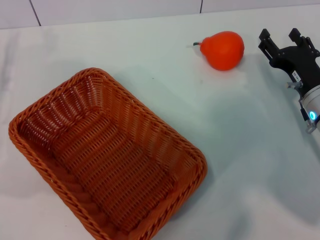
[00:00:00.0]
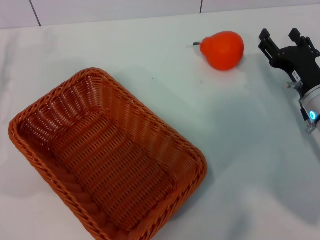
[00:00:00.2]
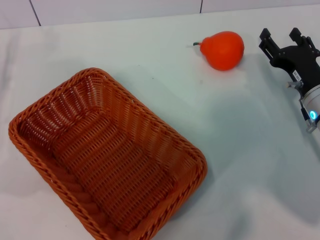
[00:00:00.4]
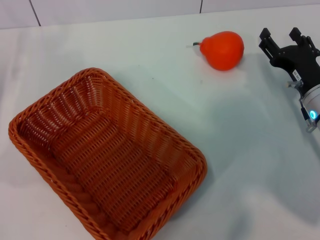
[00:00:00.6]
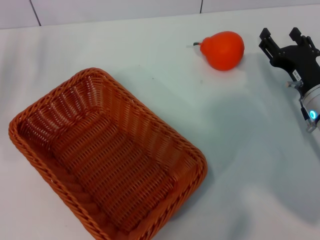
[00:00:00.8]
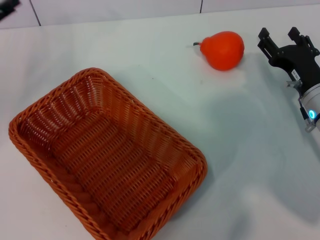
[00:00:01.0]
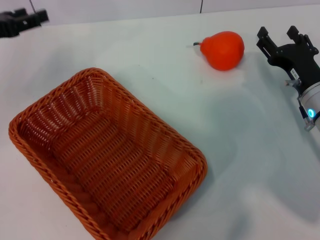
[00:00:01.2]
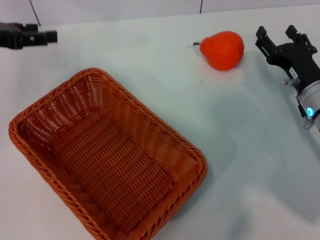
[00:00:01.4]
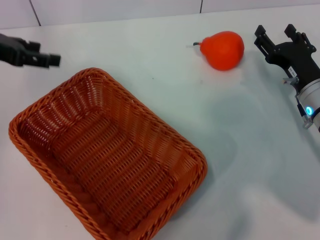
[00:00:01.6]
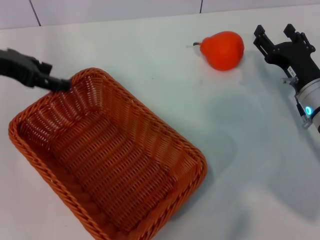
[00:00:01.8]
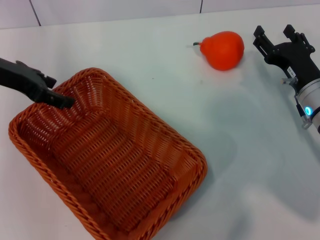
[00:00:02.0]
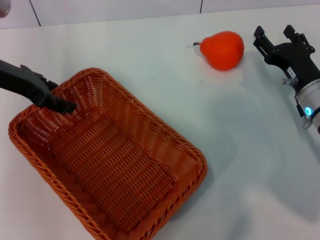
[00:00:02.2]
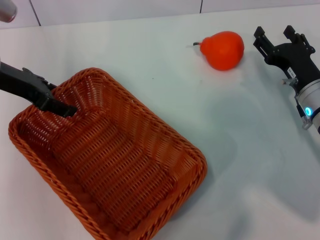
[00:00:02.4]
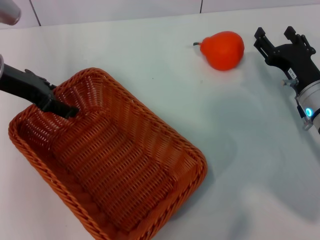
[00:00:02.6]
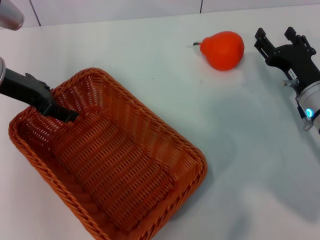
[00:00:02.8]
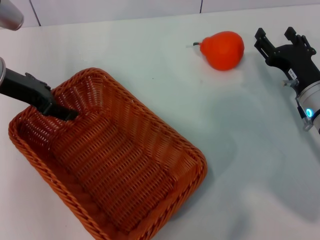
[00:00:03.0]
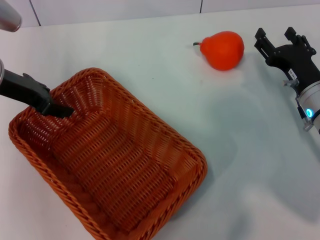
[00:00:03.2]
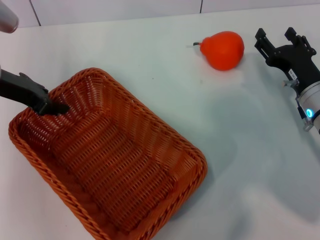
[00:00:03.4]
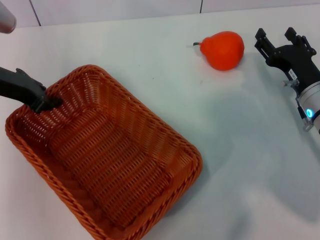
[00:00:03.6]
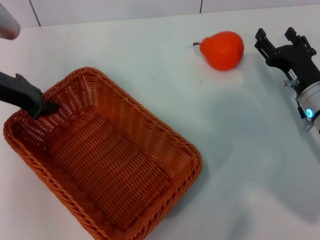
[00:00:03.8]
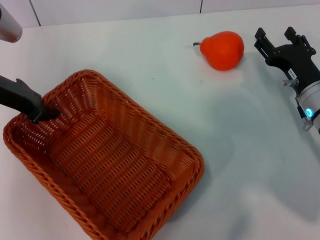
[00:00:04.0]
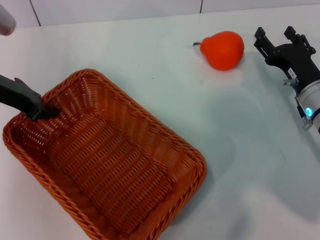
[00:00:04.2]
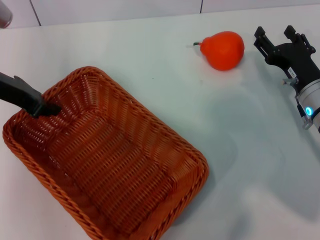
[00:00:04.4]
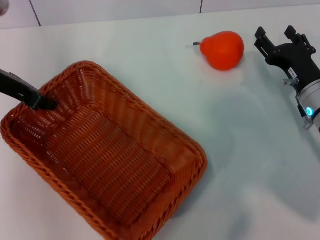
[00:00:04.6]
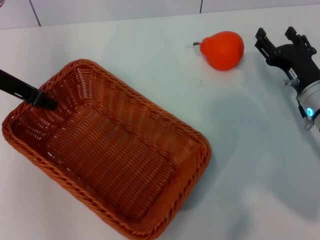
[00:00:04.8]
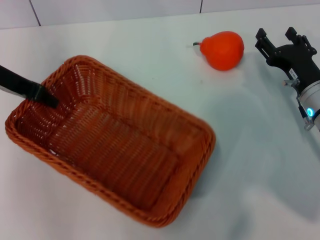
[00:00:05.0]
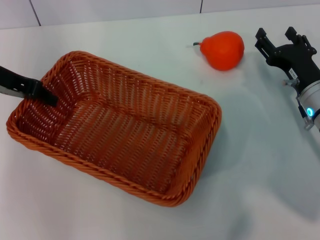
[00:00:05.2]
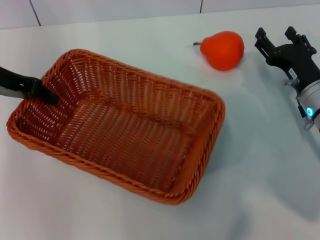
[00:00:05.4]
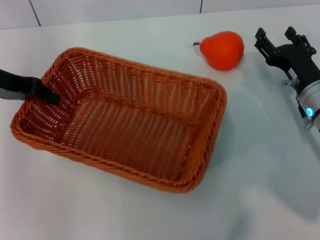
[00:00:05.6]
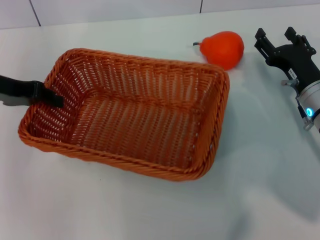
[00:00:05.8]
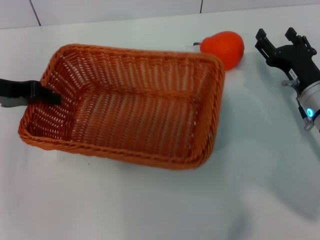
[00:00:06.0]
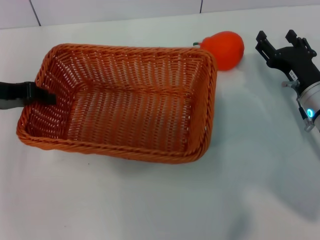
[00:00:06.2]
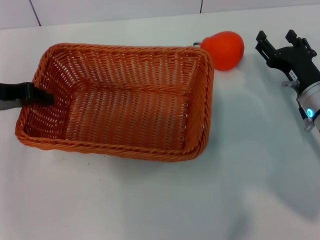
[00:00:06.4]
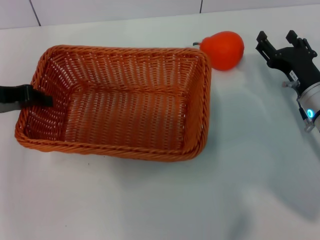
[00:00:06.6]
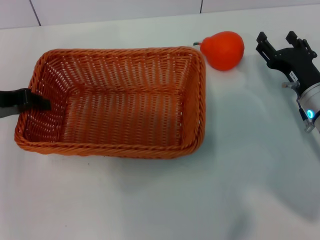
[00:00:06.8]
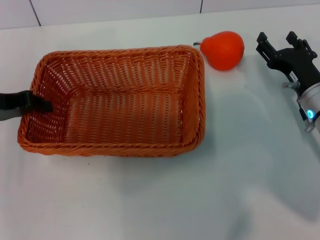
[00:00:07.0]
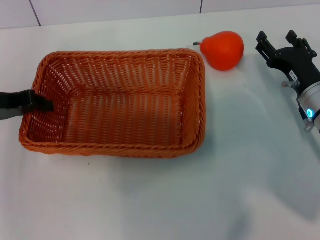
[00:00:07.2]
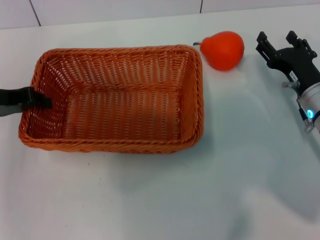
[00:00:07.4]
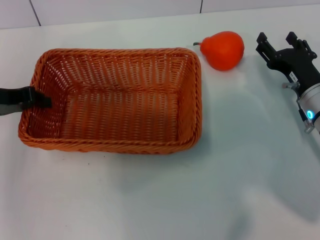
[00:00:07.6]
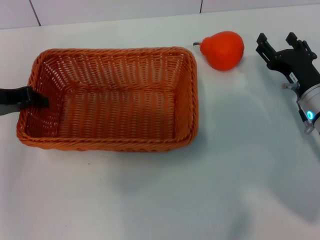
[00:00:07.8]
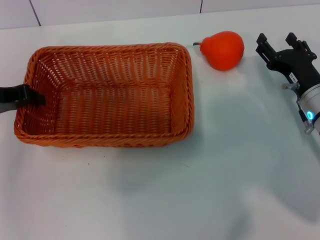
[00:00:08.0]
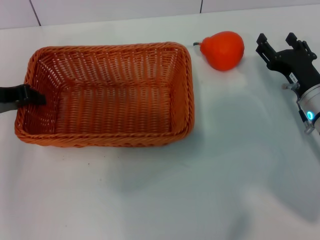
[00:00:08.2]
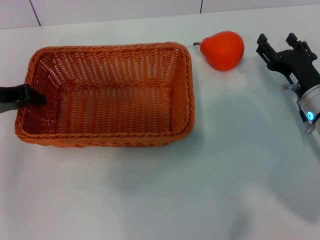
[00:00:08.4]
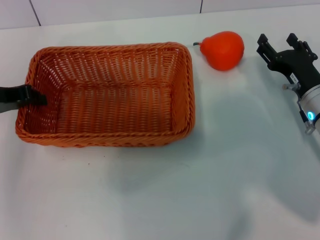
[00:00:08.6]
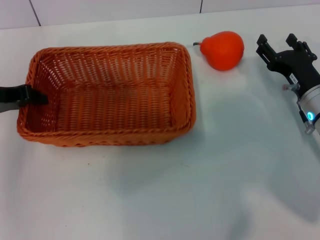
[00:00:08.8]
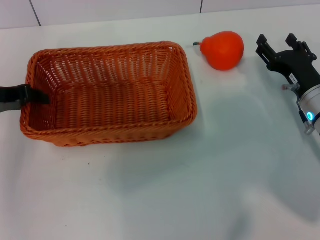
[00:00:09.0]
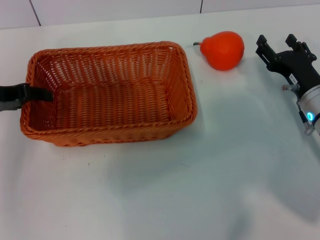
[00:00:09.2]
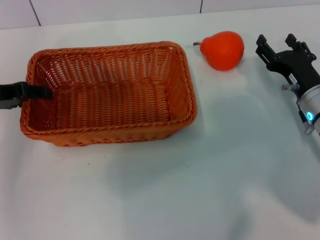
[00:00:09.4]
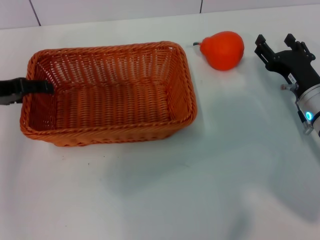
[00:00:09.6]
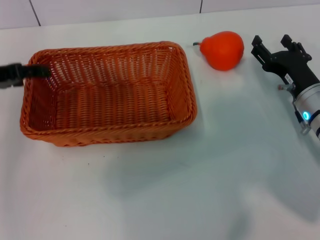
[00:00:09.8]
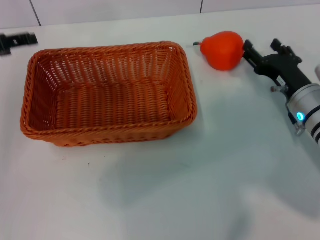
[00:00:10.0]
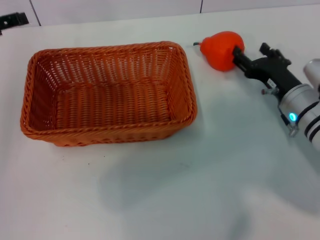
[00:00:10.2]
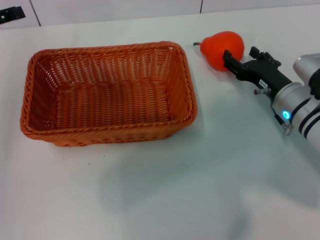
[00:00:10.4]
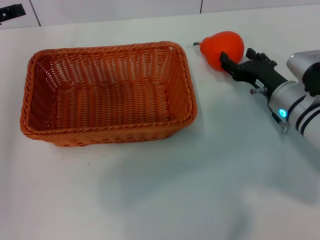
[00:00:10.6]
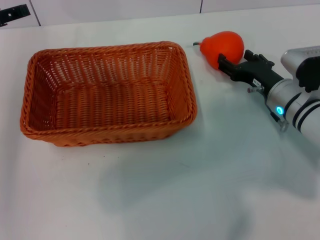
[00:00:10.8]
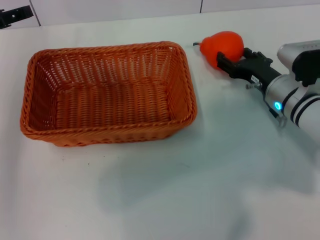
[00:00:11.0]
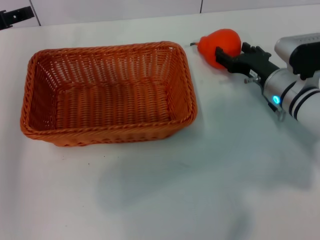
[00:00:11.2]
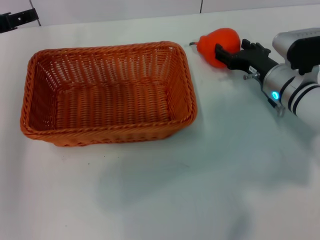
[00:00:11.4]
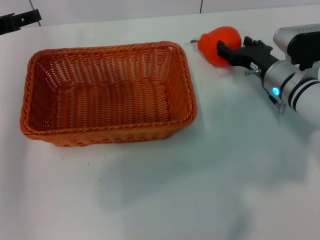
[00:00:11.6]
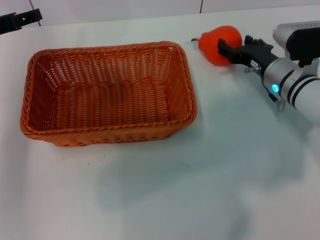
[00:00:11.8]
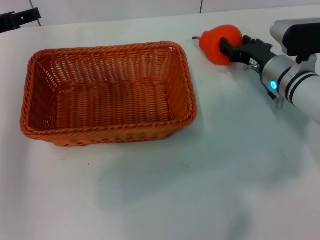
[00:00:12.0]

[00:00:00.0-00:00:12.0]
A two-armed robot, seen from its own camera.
Task of the whole recording: the left gripper pick up the yellow basket and place it horizontally in the middle of the table, the right gripper pick up the orange and place it into the yellow basket.
Step, 00:00:00.0 to 00:00:04.4: Pick up the light basket with the left gripper.
Step, 00:00:04.6 to 00:00:09.4: Place the light basket in the center of view with the left gripper.
00:00:00.0 to 00:00:01.6: The left gripper travels upward and forward by approximately 15 cm.
00:00:01.6 to 00:00:03.0: The left gripper is displaced to the right by about 5 cm.
00:00:03.0 to 00:00:04.4: The left gripper closes its fingers.
00:00:06.0 to 00:00:07.6: The grippers make only small movements.
00:00:07.6 to 00:00:09.0: Neither gripper changes place.
00:00:09.0 to 00:00:10.4: The left gripper moves some 5 cm, and opens up.
00:00:10.4 to 00:00:12.0: The right gripper travels forward by some 5 cm.

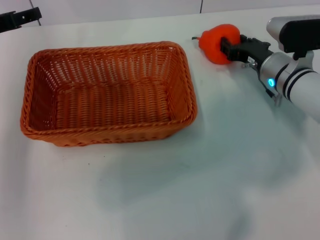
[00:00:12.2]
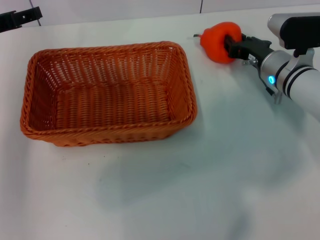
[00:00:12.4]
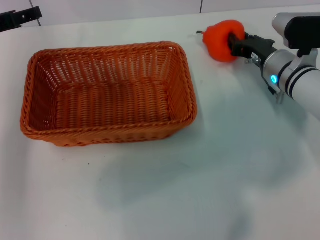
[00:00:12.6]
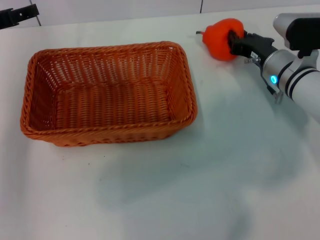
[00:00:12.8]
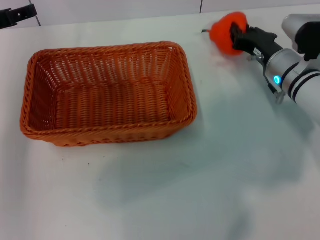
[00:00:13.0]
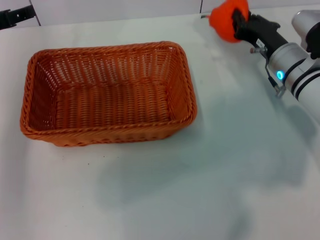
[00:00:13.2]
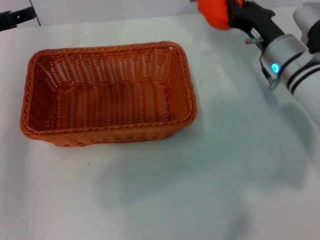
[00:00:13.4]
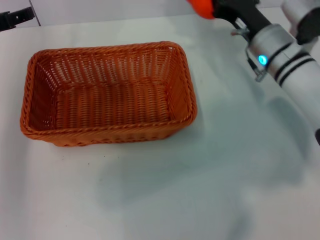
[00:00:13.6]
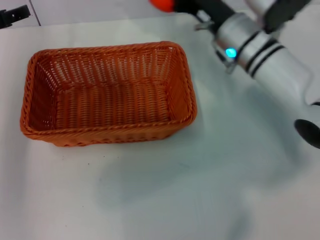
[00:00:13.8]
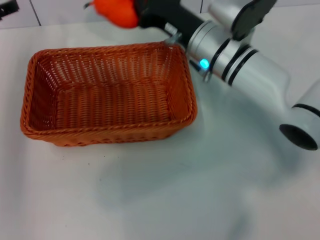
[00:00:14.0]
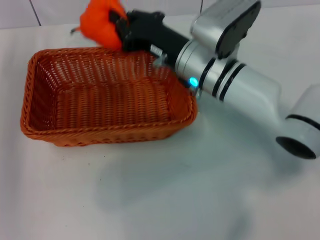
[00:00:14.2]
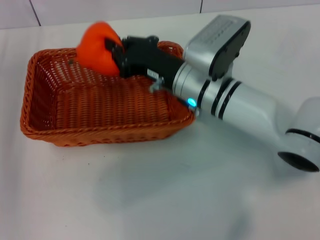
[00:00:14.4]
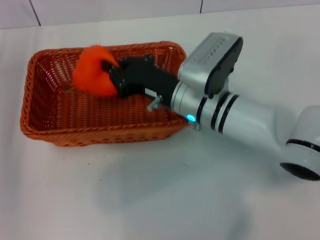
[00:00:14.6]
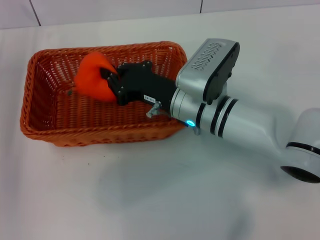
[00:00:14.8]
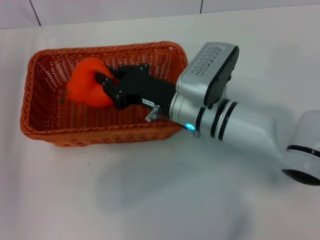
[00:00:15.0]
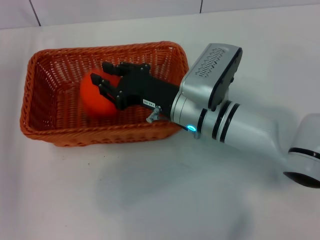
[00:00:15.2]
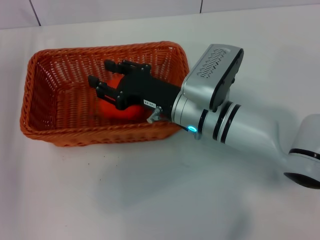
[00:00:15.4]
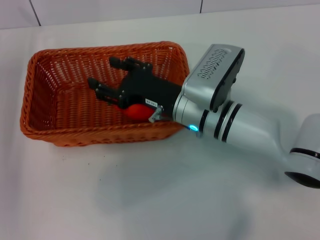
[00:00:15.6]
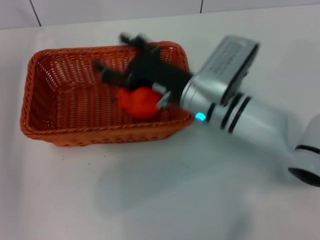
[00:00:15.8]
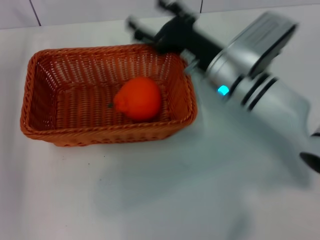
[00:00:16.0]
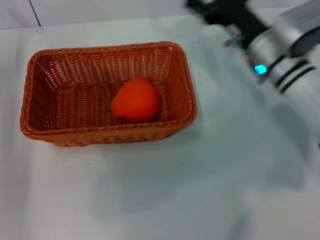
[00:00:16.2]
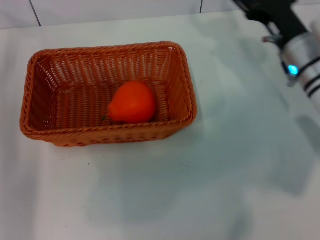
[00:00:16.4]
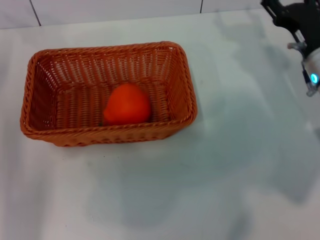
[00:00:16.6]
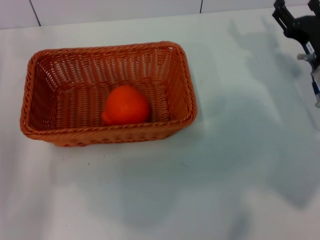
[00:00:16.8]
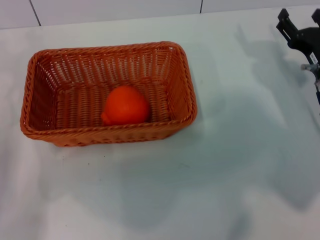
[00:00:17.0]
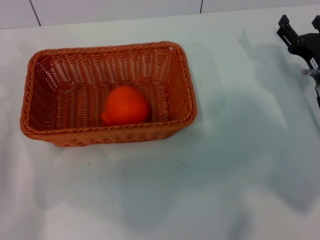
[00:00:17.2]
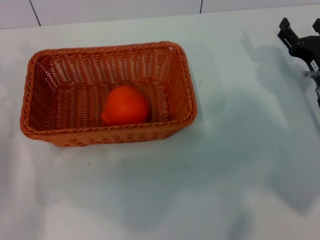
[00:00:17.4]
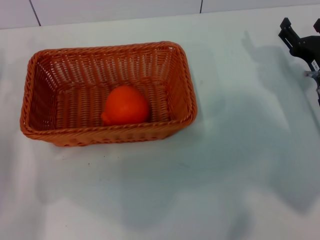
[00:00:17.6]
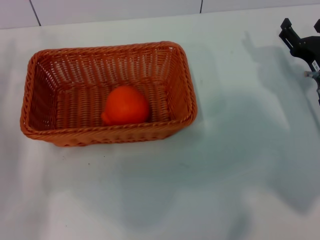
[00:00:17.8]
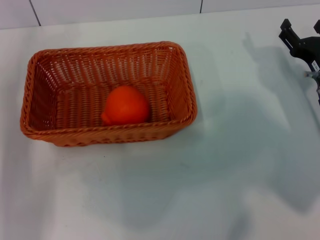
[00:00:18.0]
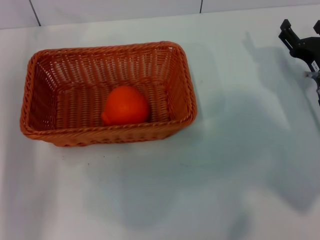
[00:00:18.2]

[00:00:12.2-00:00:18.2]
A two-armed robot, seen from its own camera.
Task of the whole recording: the left gripper pick up the yellow basket and place it horizontally in the middle of the table, the right gripper pick up the orange and place it into the yellow basket.
Step, 00:00:13.2 to 00:00:15.4: Place the orange into the light basket with the right gripper.
00:00:12.2 to 00:00:13.8: The right gripper shifts about 10 cm to the left and upward, and closes its fingers.
00:00:13.8 to 00:00:15.2: The right gripper heads backward and to the left, covering about 10 cm.
00:00:15.2 to 00:00:16.6: The left gripper shifts by some 5 cm; the right gripper heads to the right, covering some 20 cm, and opens its fingers.
